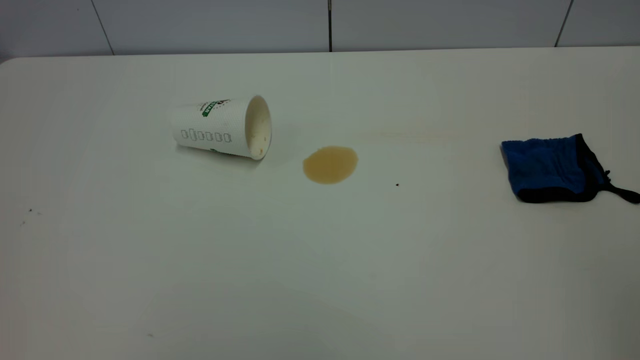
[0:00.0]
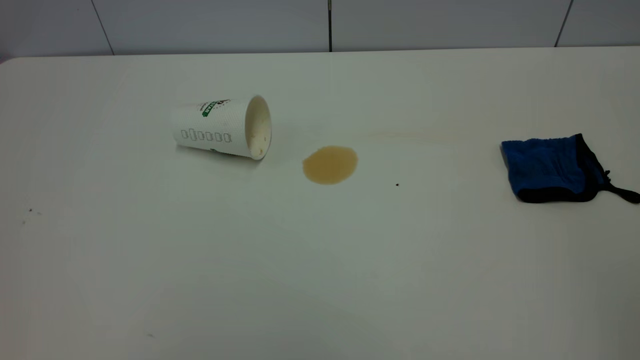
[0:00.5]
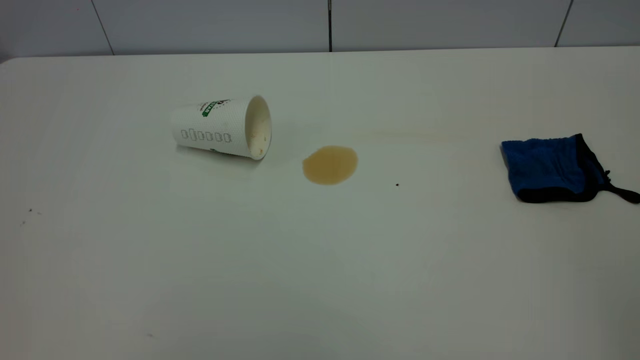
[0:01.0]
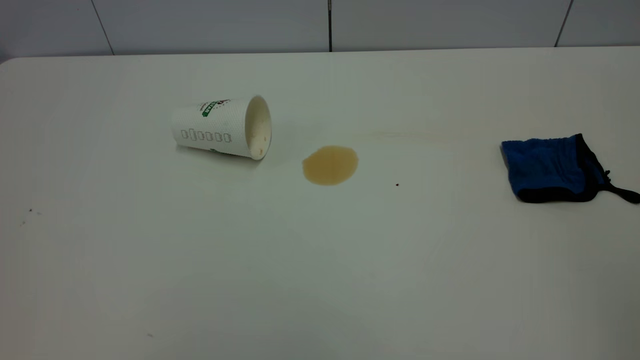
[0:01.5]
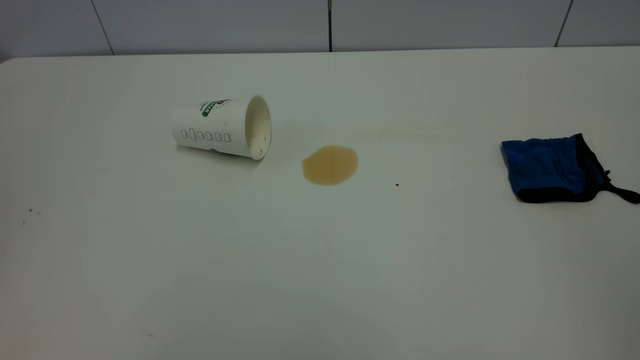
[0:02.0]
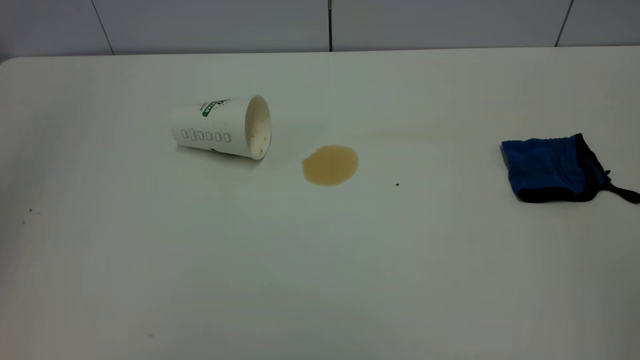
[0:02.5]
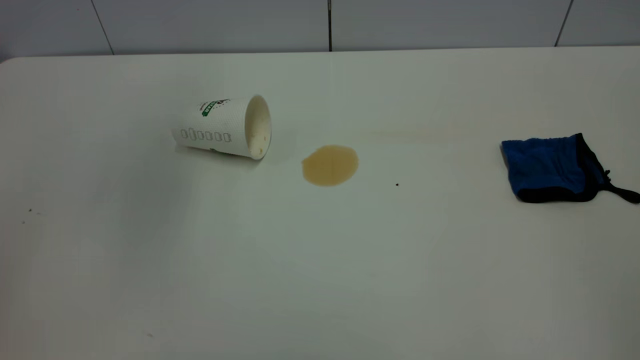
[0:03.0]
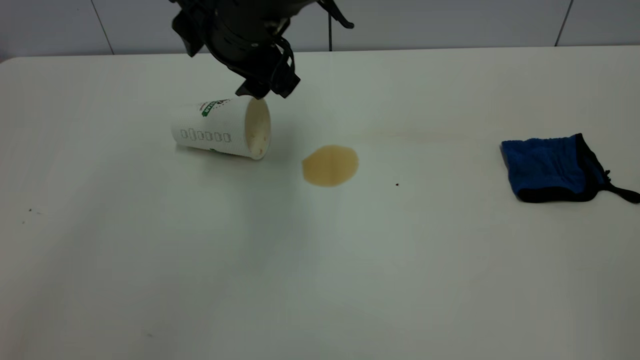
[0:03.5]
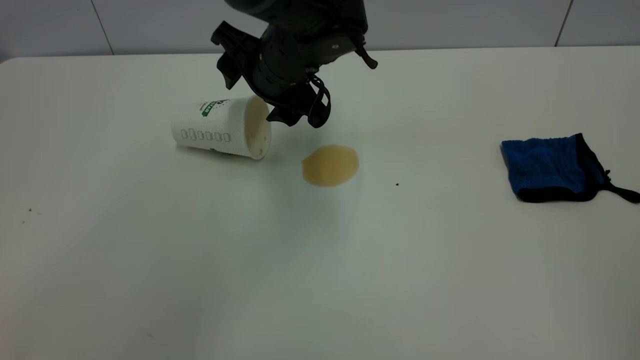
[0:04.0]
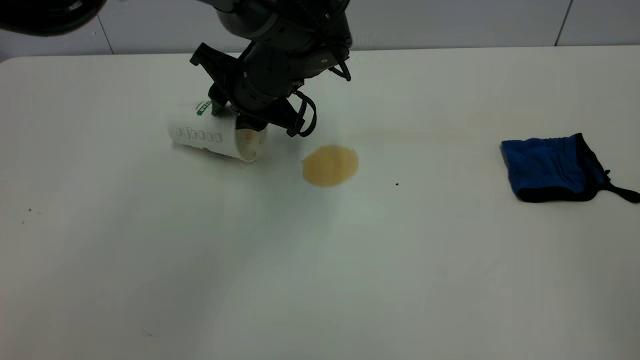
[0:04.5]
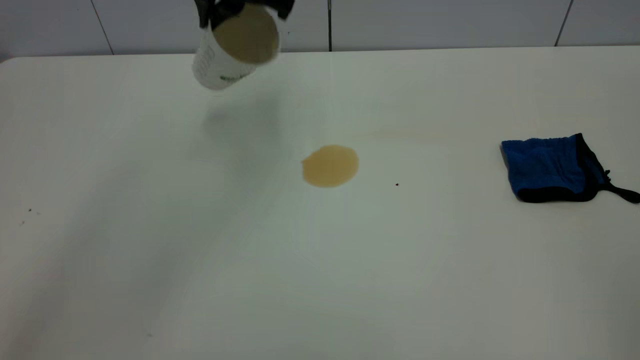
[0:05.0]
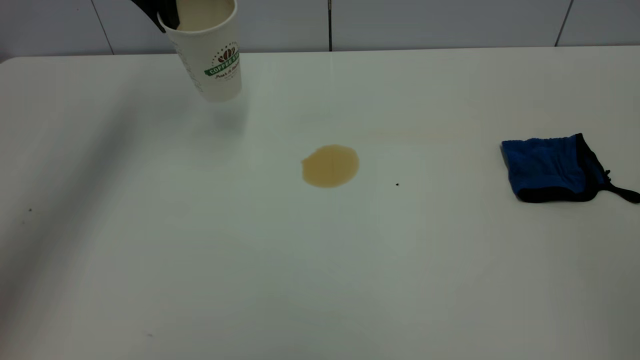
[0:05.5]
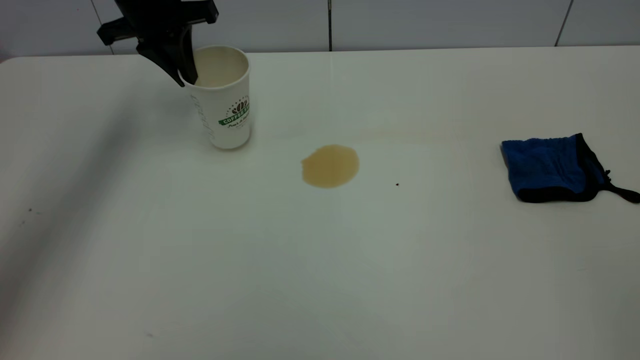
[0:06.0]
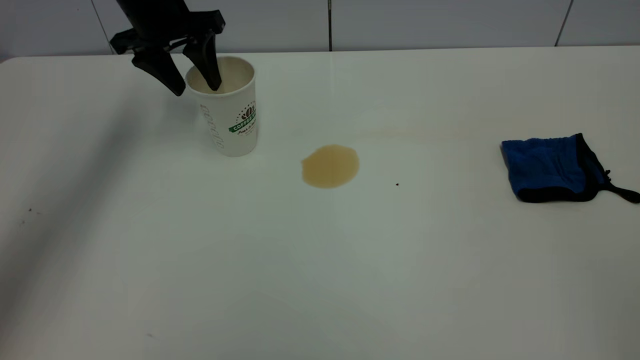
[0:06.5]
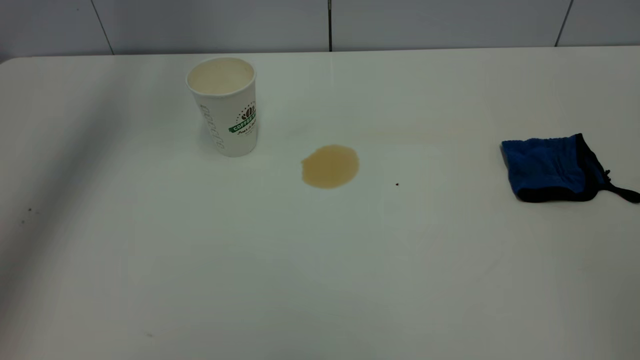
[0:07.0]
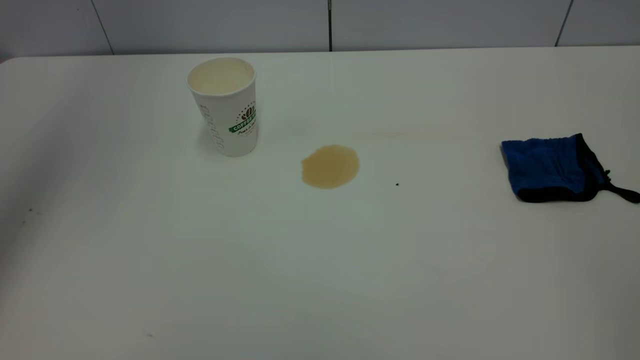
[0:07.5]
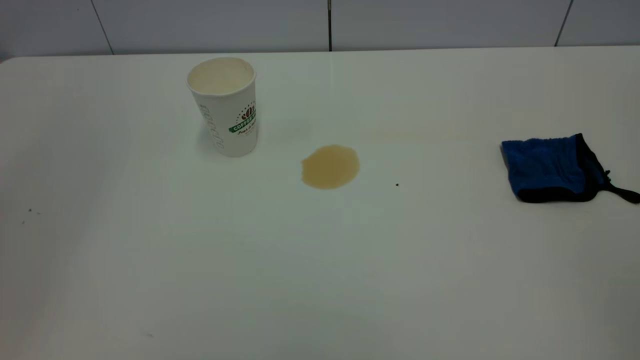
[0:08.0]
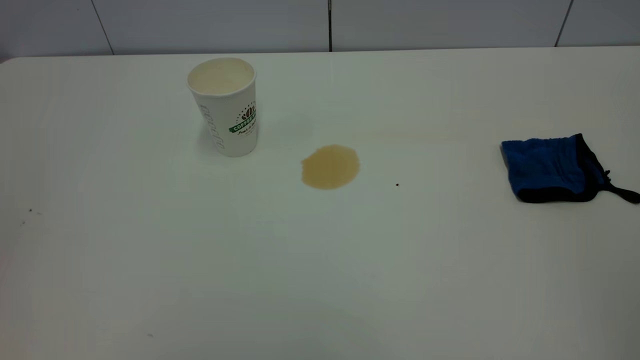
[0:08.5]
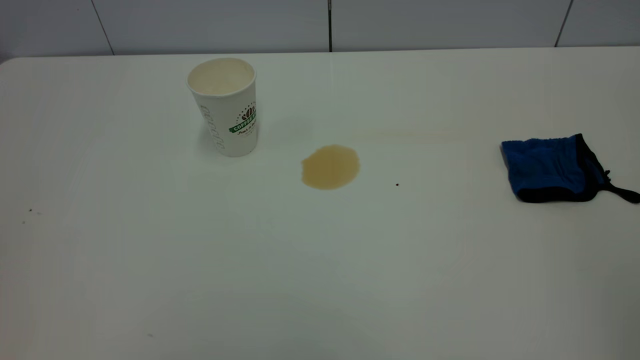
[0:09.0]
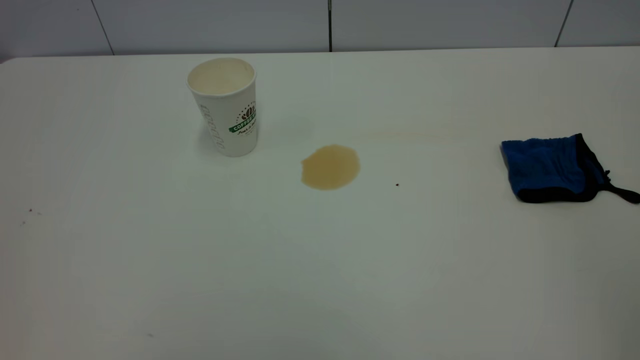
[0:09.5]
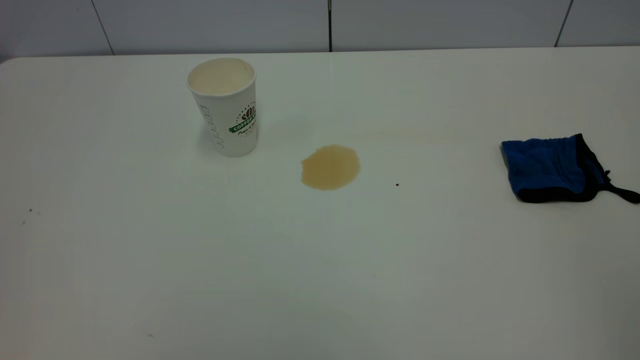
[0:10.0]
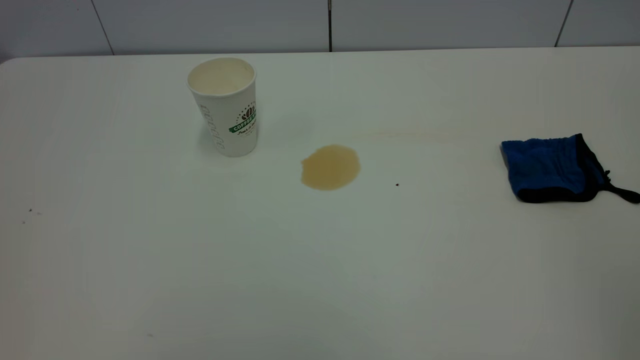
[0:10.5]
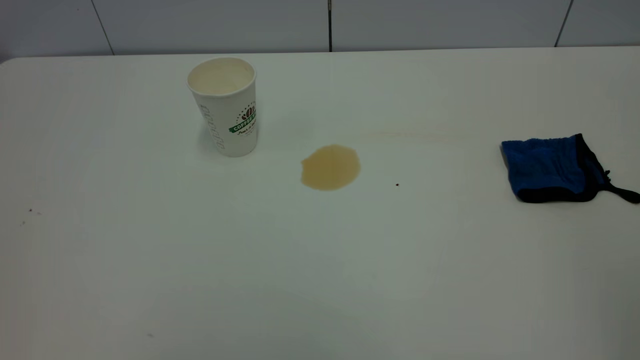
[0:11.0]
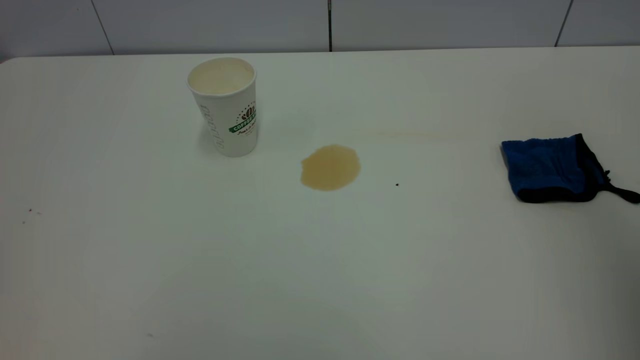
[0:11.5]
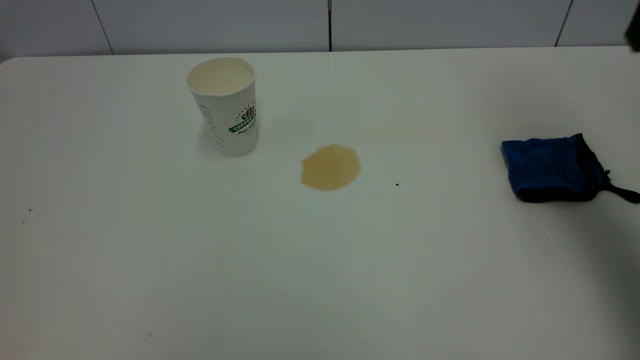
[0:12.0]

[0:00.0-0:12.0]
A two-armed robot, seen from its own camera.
Task of the whole recording: the left gripper pick up the fallen cup and place it upright, the right gripper grasp the blue rag and wipe the tea stain on the table, the right gripper put the blue rag back in its original position.
Step, 0:00.0 to 0:06.5: Stand the paper cup upright.
0:02.0 to 0:04.0: The left gripper shifts some 50 cm forward, to the right and downward.
0:04.0 to 0:06.0: The left gripper goes approximately 20 cm to the left and forward, and closes.
0:06.0 to 0:08.0: The left gripper moves backward and upward, about 35 cm, and opens, then closes once more.
0:10.0 to 0:12.0: The right gripper is displaced forward by roughly 35 cm, and opens.

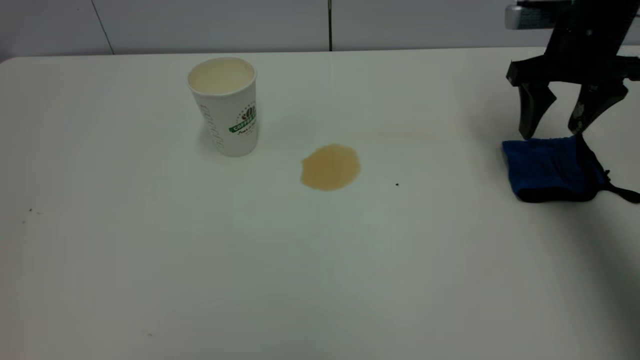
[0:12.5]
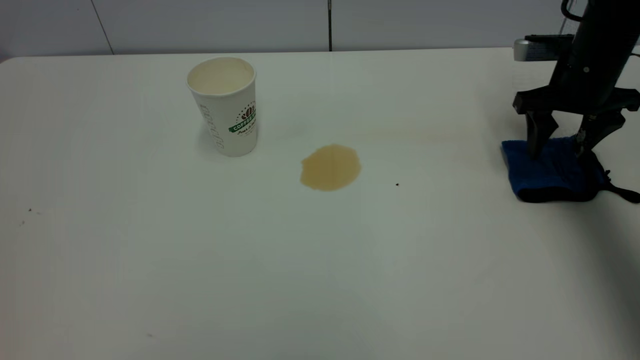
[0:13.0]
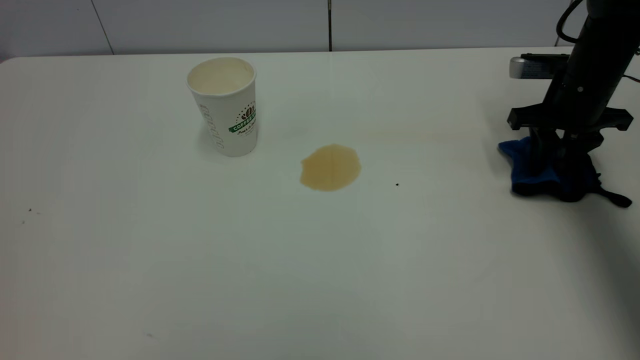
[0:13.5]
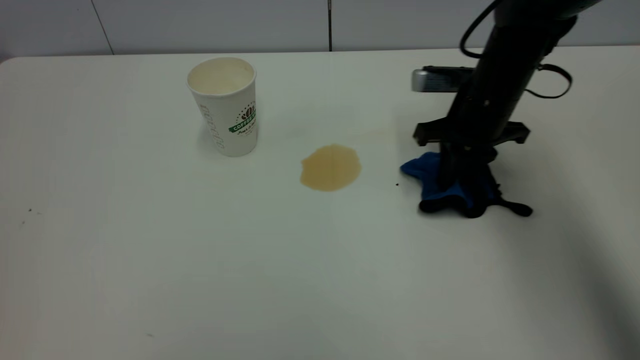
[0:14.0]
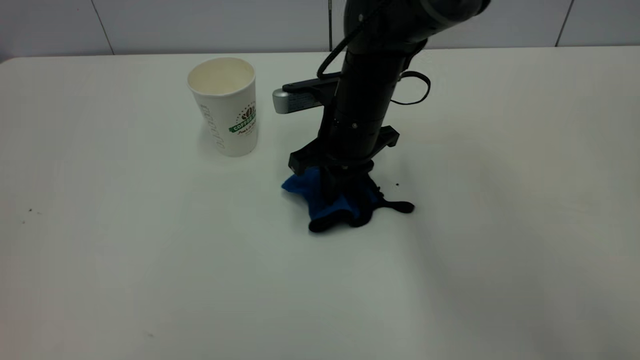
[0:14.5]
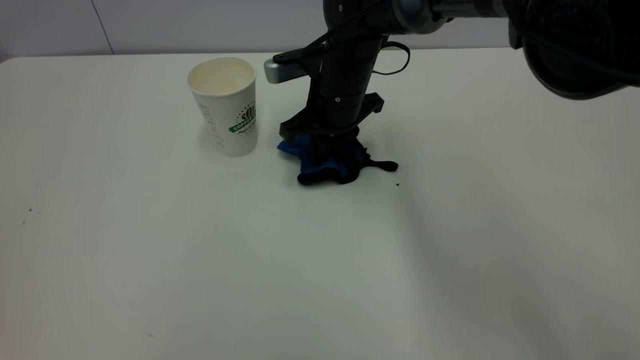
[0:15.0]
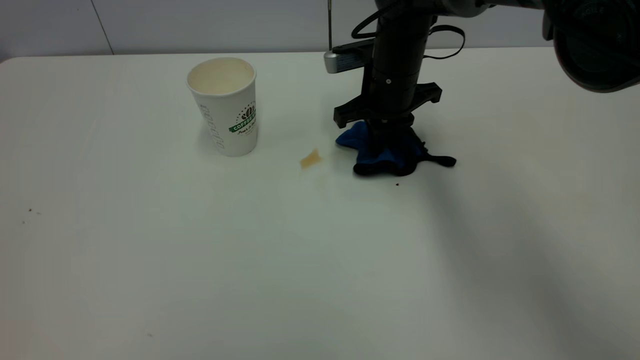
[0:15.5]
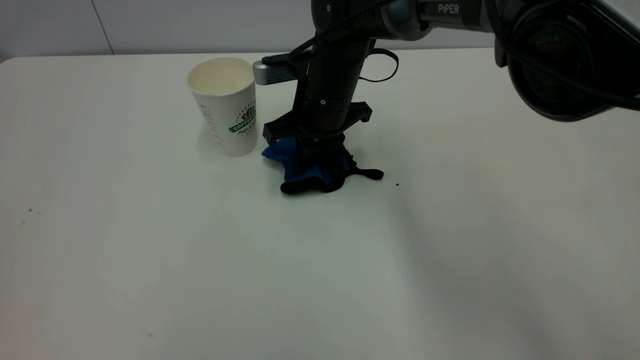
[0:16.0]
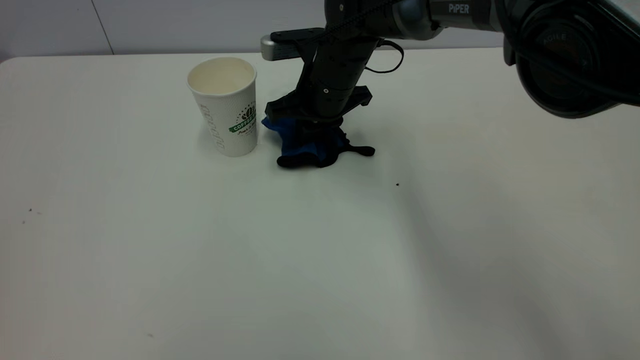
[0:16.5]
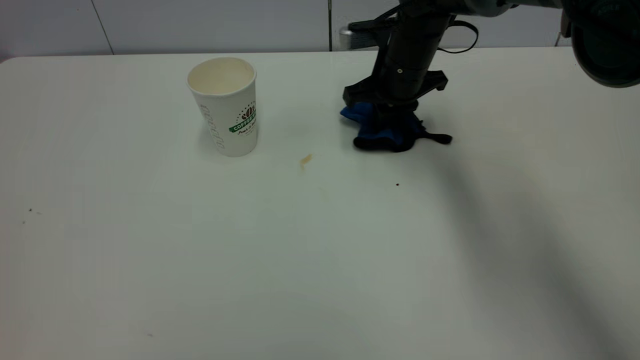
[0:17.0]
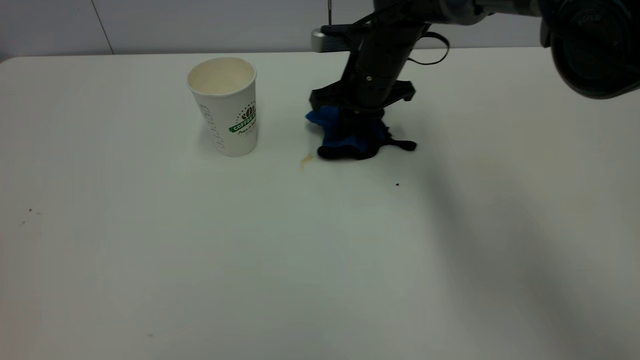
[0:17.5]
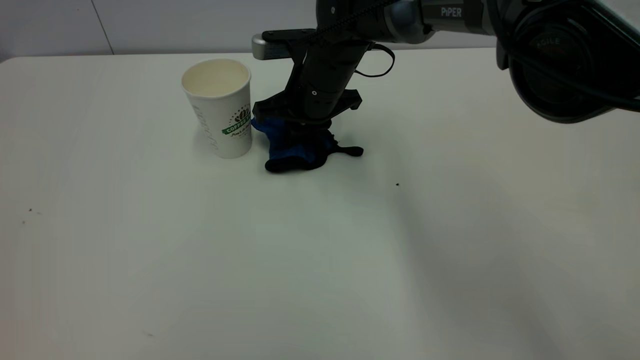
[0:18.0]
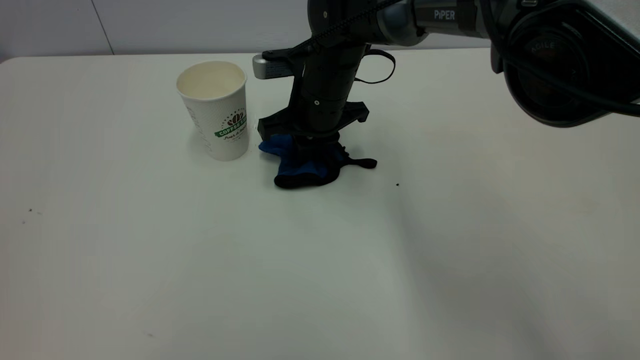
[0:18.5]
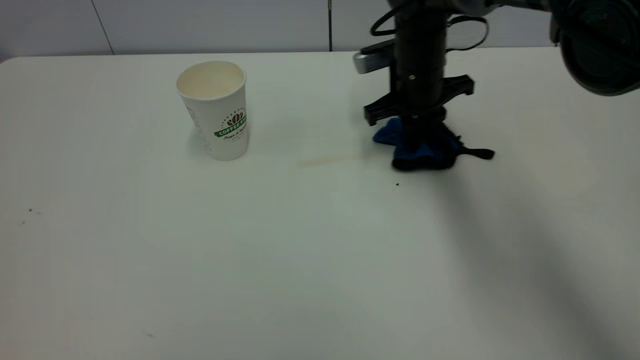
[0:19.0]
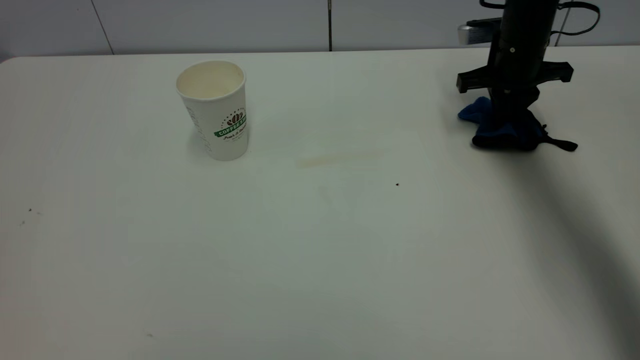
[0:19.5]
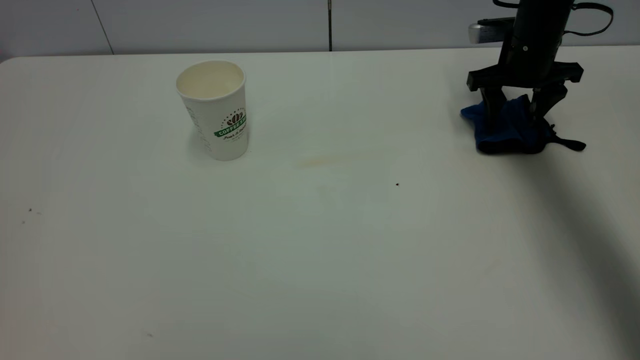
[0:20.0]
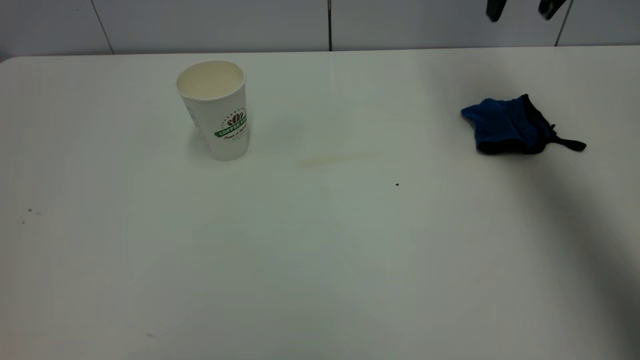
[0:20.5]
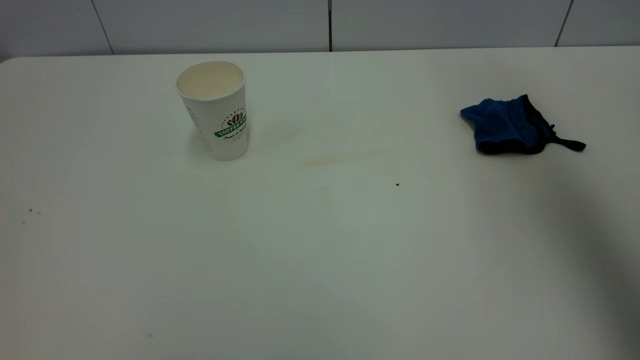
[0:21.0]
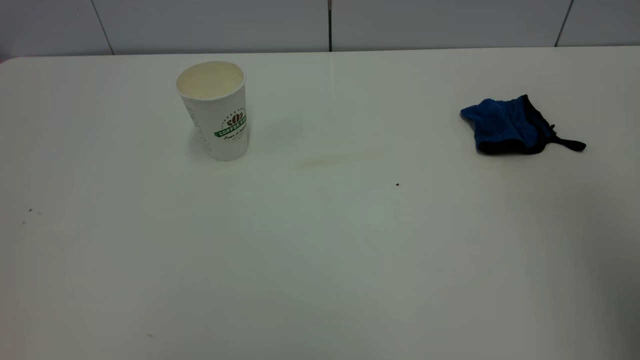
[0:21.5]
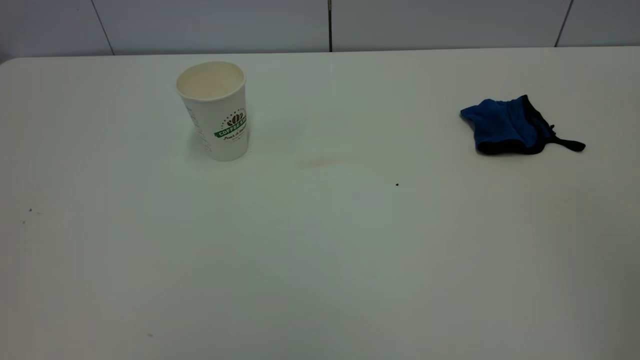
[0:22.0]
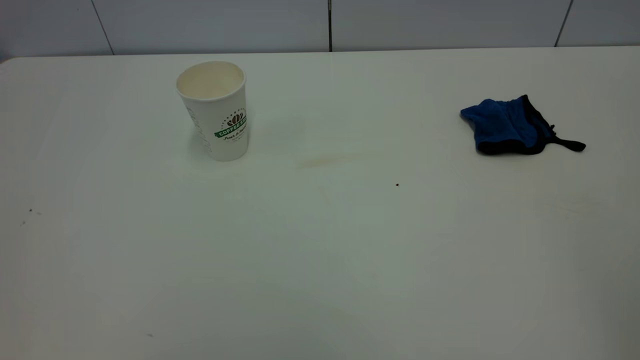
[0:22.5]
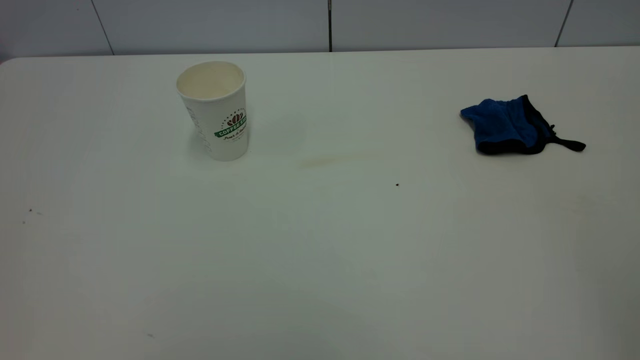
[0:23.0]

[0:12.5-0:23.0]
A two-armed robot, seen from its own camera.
Task of the whole recording: the left gripper pick up the fallen cup and place it upright, the right gripper grasp the blue rag and wipe the tea stain on the table, the right gripper put the blue rag back in its original position.
Step, 0:12.5 to 0:20.0: Wipe the stains off the table with a rag.
0:12.5 to 0:14.5: The right gripper travels to the left by roughly 25 cm, and closes its fingers.
0:14.5 to 0:16.5: The right gripper moves forward, approximately 5 cm.
0:16.5 to 0:19.0: The right gripper swings left and right, about 15 cm each way, with 2 reversals.
0:19.0 to 0:21.0: The right gripper moves upward and backward, roughly 40 cm, and opens up.
0:21.0 to 0:23.0: The right gripper moves backward, approximately 30 cm.
